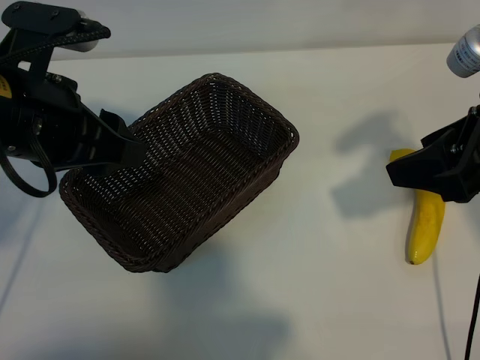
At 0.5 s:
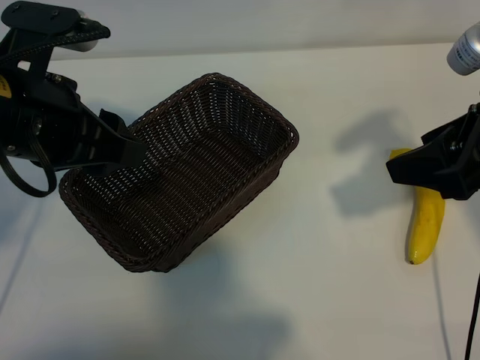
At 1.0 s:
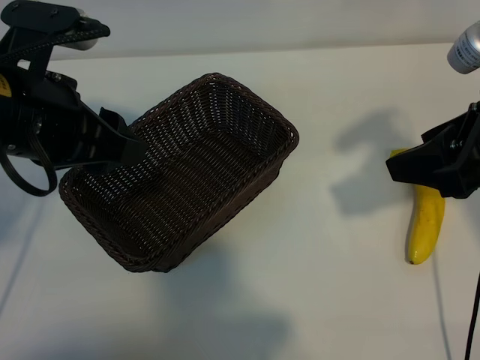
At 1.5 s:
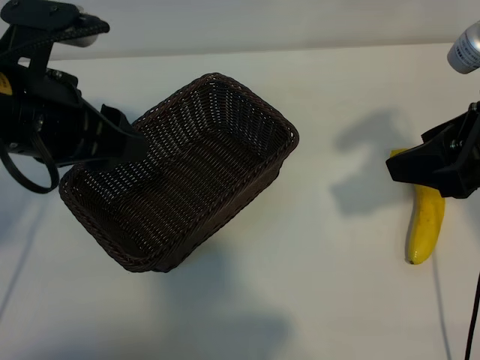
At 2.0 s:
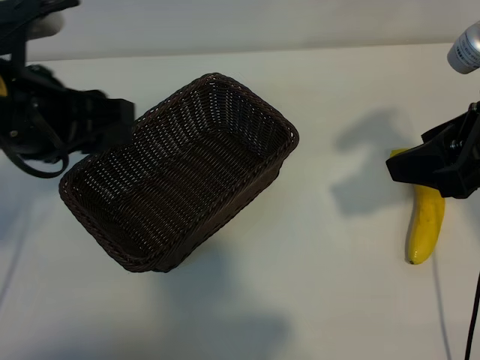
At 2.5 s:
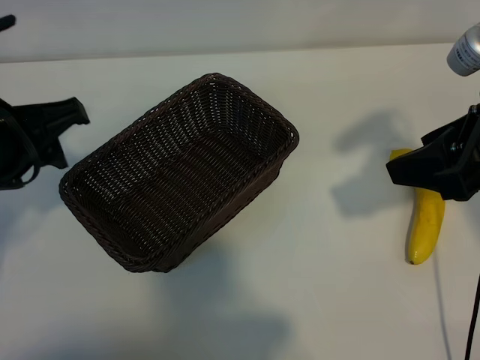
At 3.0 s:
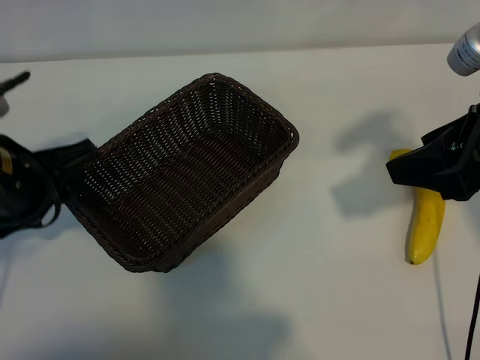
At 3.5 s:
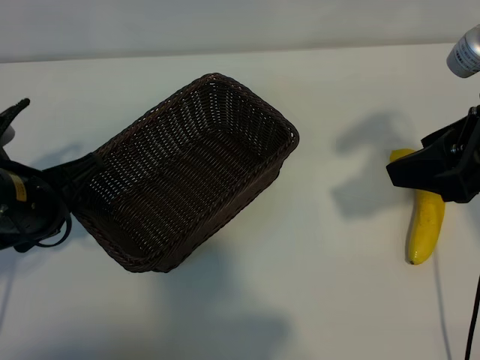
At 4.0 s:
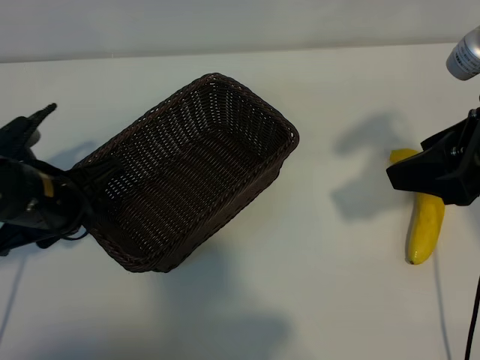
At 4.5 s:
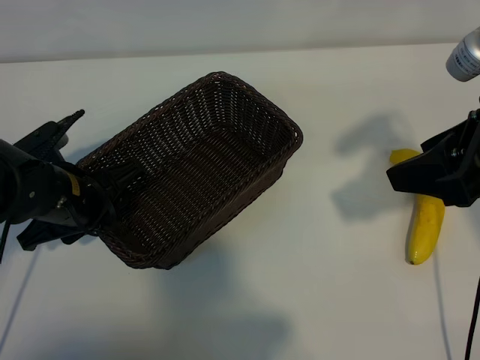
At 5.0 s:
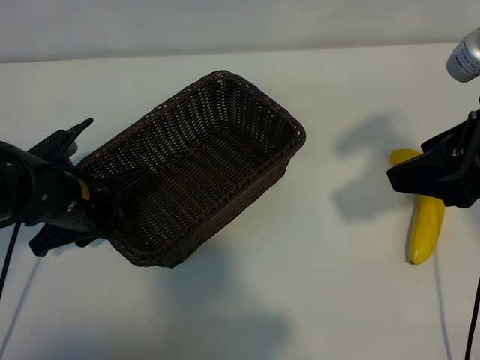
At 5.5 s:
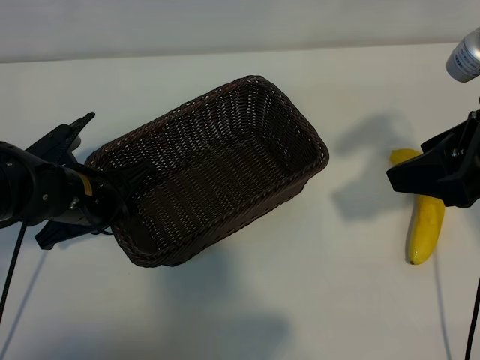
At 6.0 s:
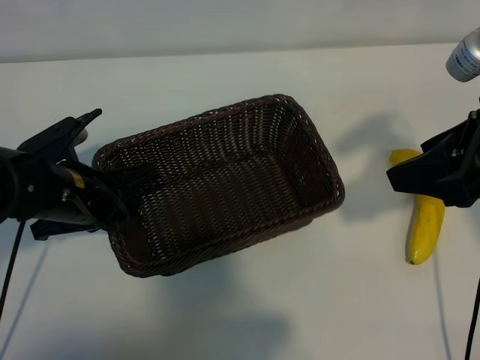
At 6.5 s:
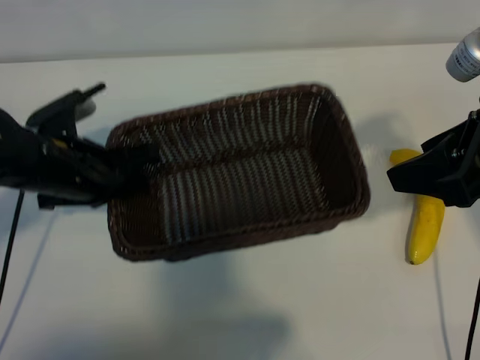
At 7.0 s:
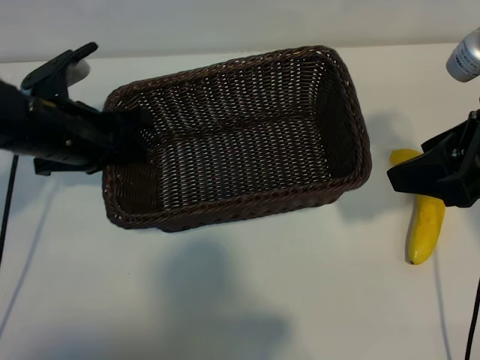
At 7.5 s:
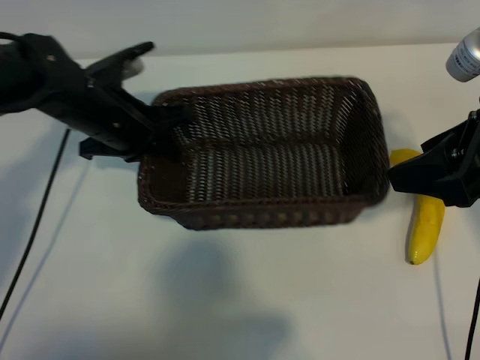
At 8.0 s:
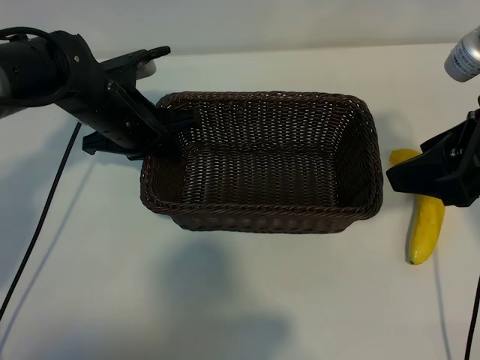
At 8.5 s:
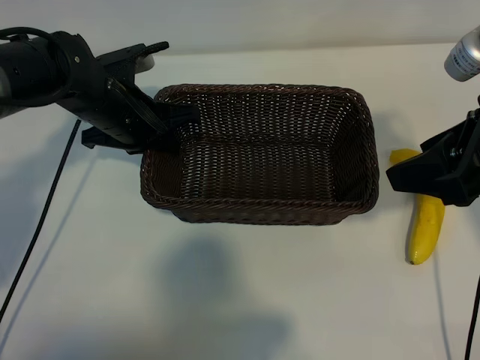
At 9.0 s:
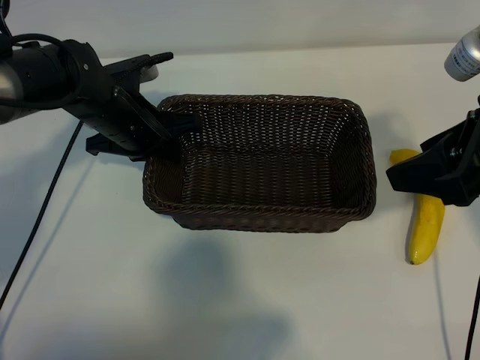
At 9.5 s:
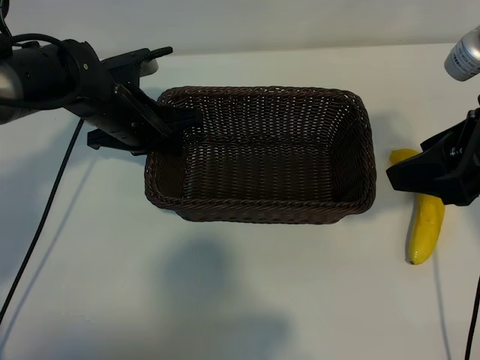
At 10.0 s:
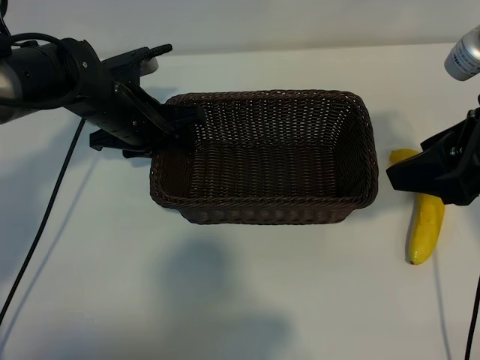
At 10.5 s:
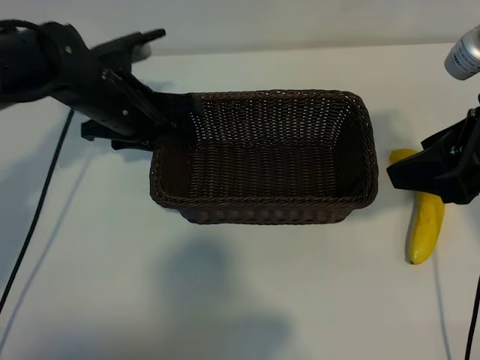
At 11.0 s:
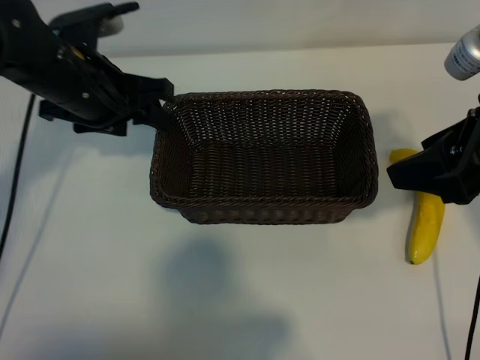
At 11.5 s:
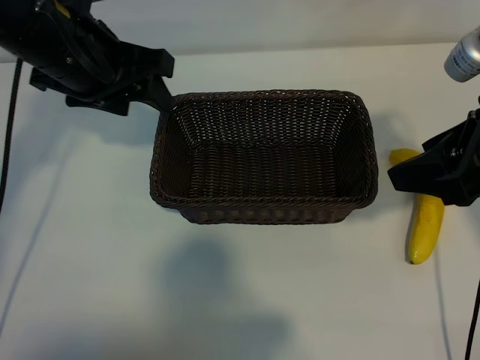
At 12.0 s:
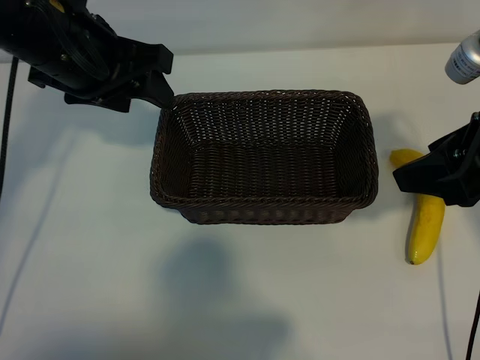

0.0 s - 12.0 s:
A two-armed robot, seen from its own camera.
Task of the whole recording: pick up the banana and put it into the basket.
Step, 0.0 s - 5.5 s: Grasp the basket with the left gripper.
Step, 6.0 s - 11.0 s: Place the basket in the center of the table with the left gripper.

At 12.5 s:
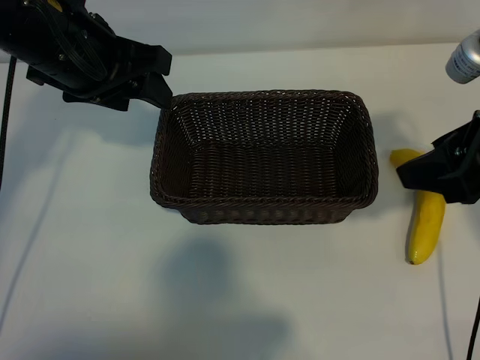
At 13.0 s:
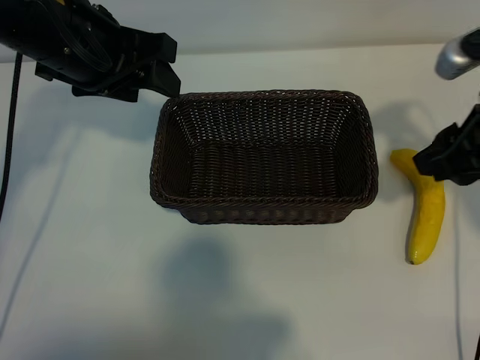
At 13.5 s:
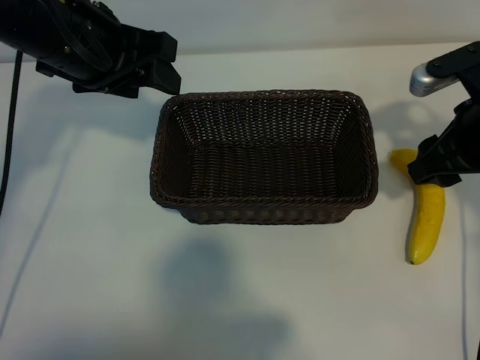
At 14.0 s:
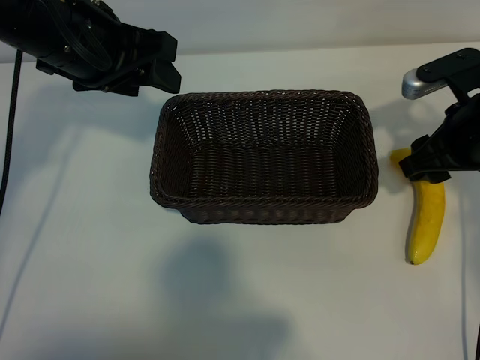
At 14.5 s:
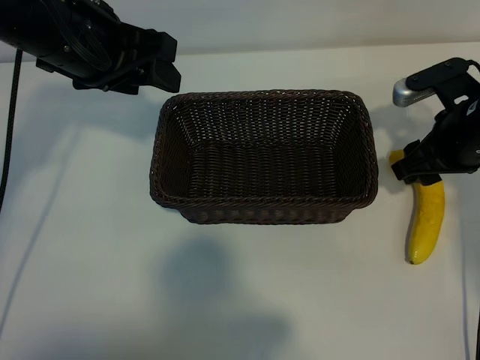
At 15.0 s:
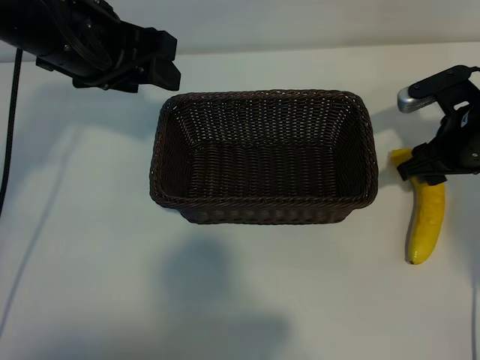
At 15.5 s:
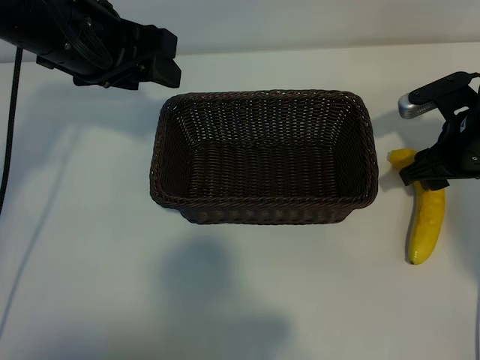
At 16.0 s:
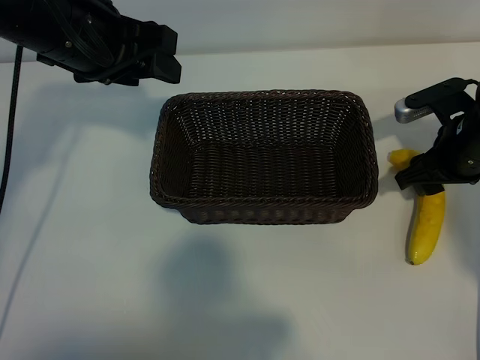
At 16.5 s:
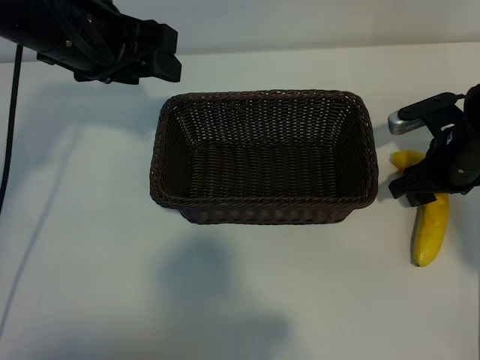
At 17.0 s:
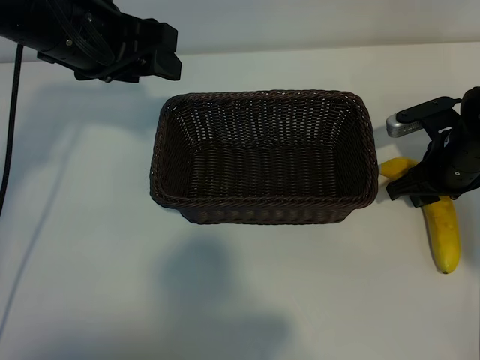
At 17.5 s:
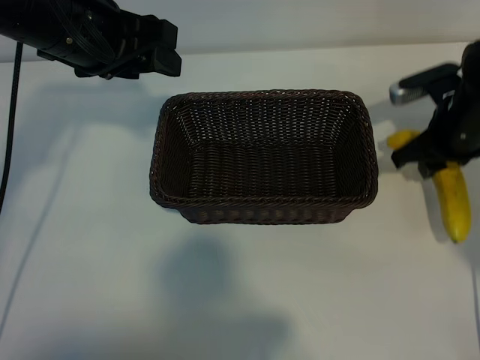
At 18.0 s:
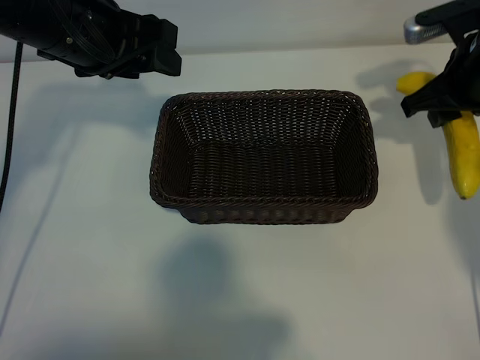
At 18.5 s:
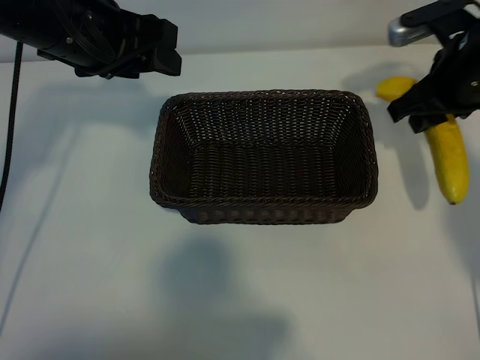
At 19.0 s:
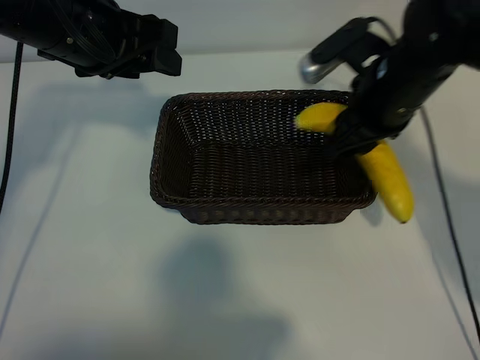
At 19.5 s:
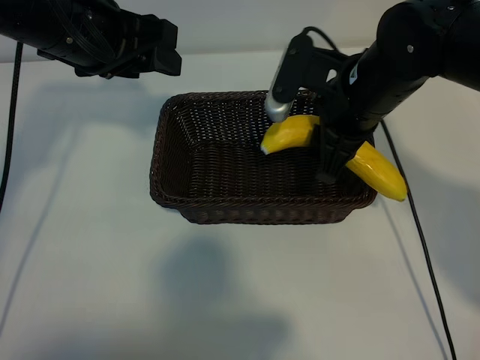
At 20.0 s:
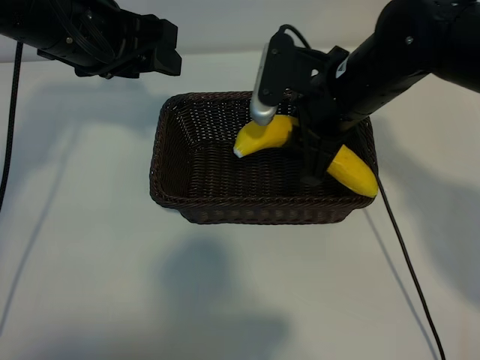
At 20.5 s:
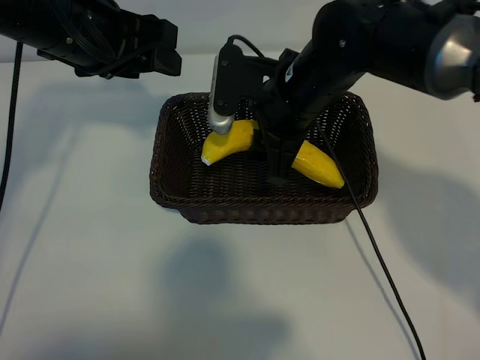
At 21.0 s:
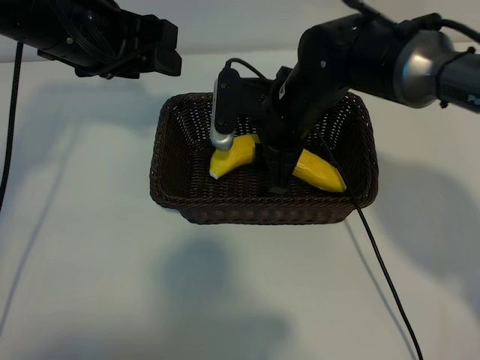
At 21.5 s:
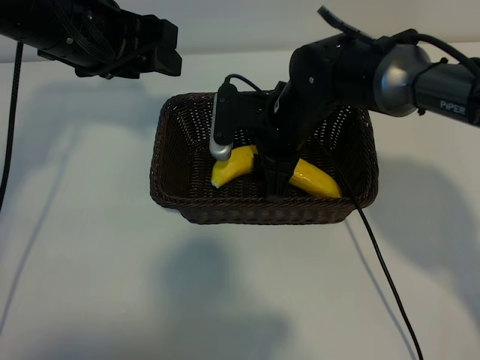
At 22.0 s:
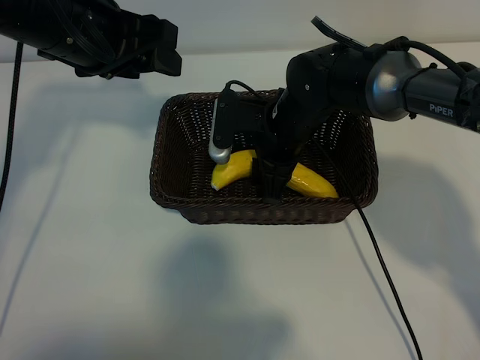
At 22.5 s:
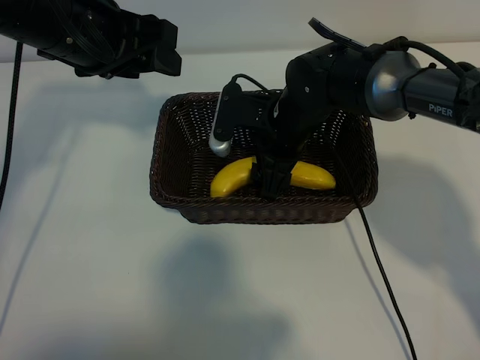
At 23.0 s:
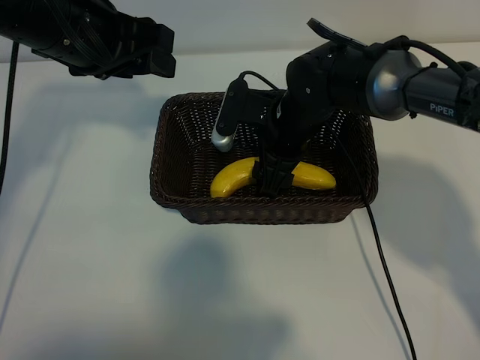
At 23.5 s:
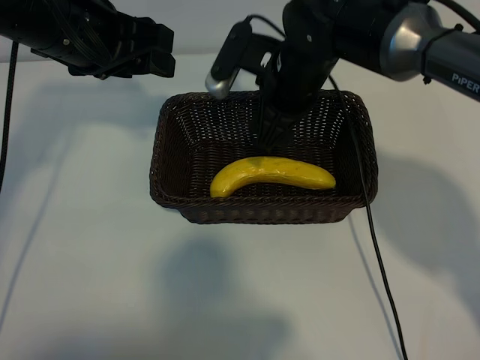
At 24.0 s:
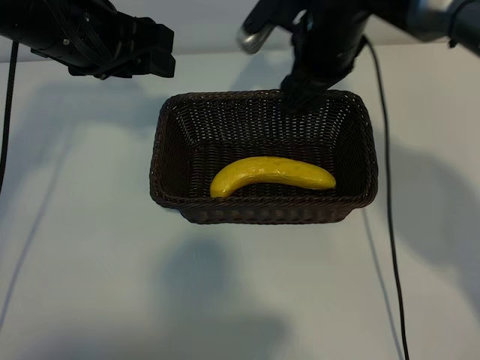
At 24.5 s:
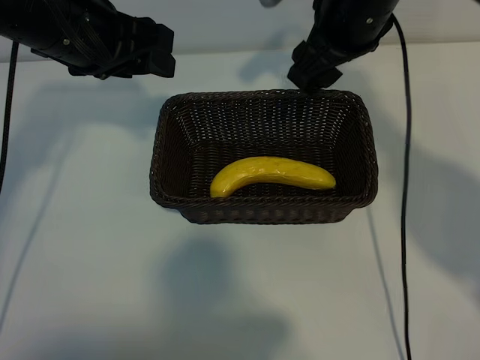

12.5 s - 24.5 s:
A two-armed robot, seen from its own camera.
Task of the whole recording: pick up the banana and put it into the basket.
Step, 12.5 s - 16.5 s: Grasp the banana with right gripper.
Step, 17.0 s - 23.5 s: Place the banana in the basket with right gripper.
